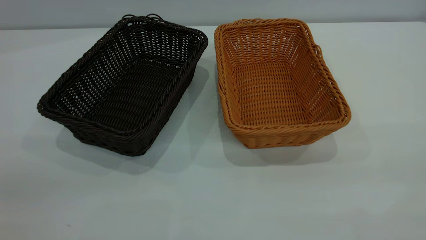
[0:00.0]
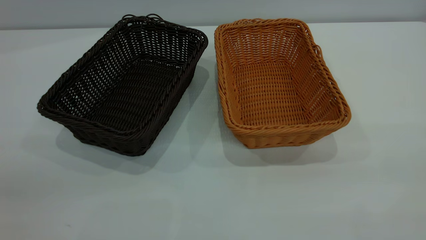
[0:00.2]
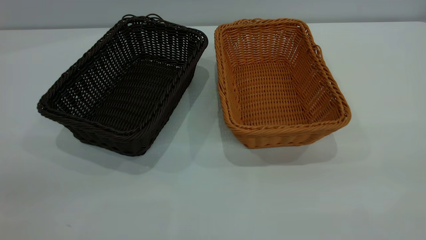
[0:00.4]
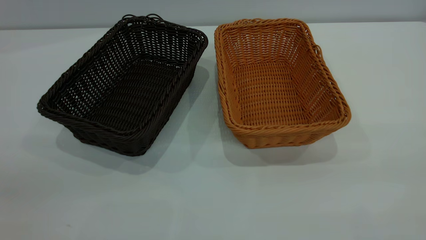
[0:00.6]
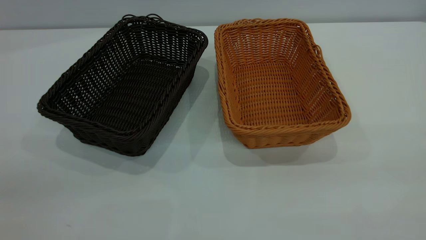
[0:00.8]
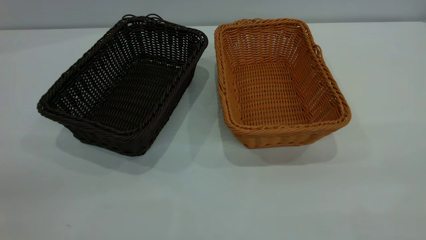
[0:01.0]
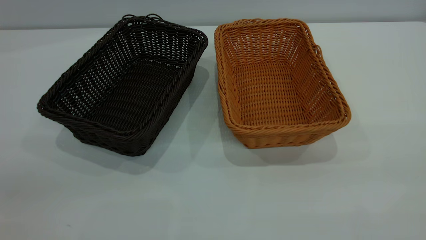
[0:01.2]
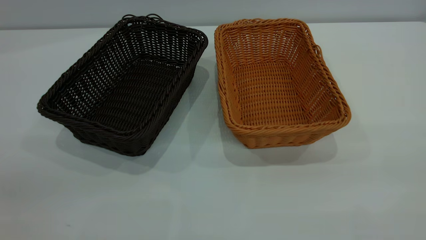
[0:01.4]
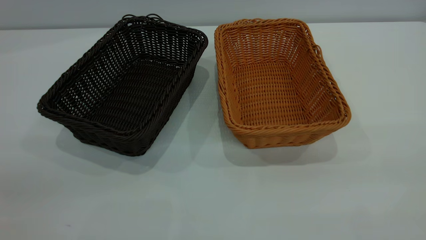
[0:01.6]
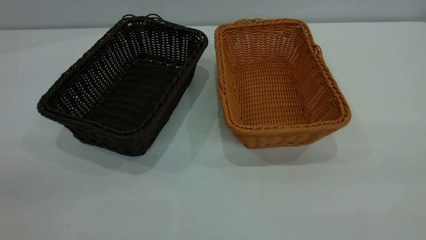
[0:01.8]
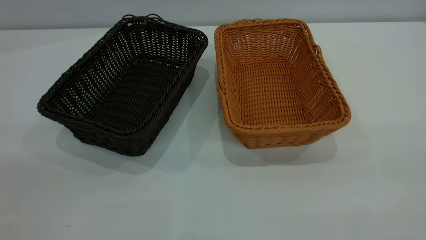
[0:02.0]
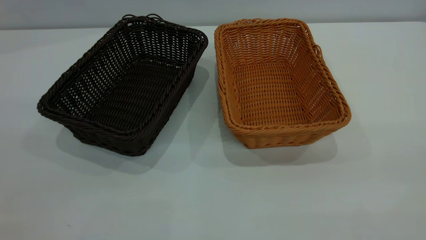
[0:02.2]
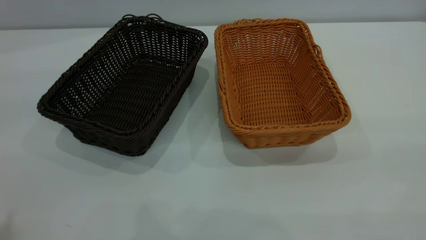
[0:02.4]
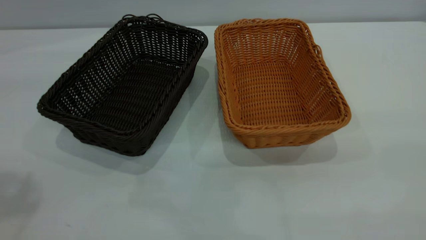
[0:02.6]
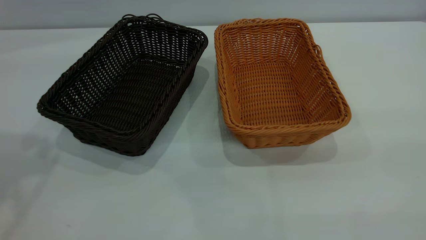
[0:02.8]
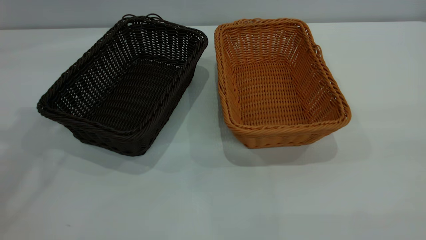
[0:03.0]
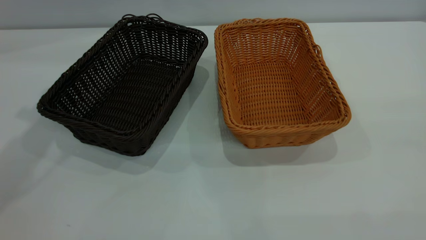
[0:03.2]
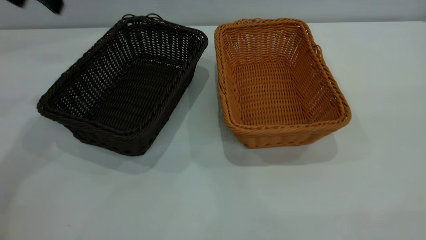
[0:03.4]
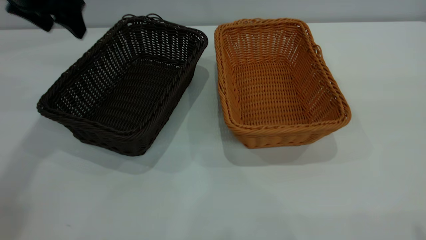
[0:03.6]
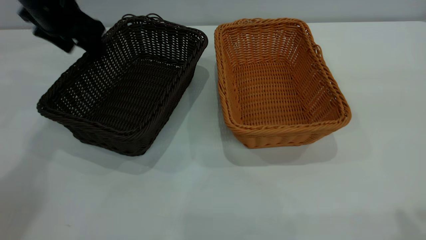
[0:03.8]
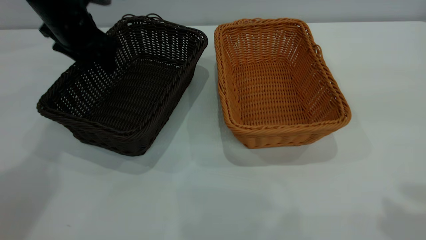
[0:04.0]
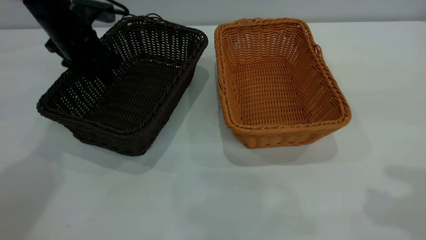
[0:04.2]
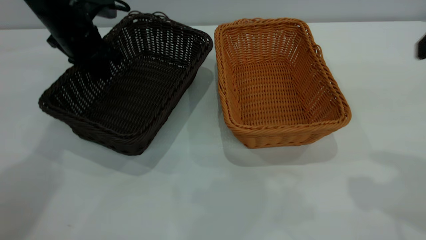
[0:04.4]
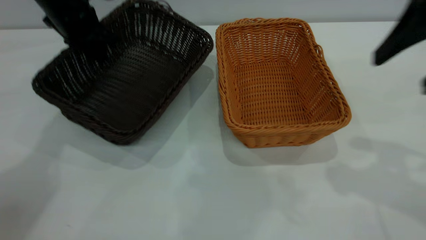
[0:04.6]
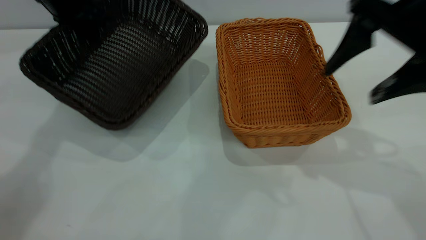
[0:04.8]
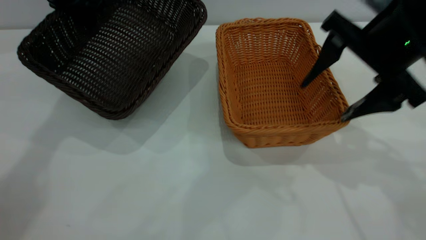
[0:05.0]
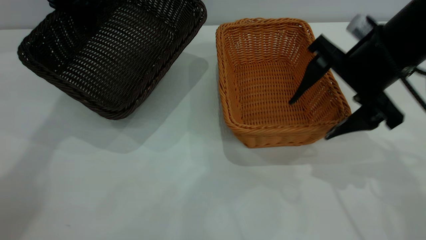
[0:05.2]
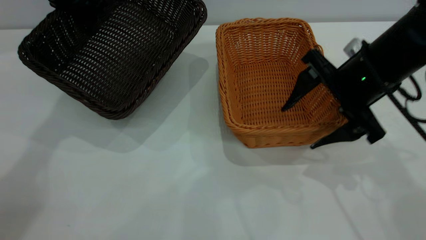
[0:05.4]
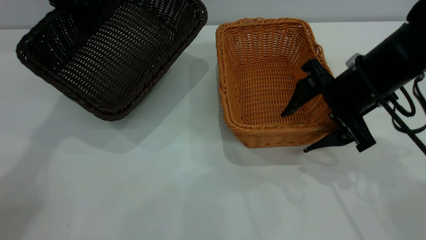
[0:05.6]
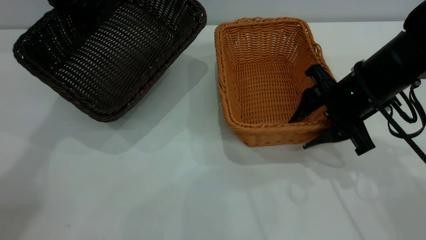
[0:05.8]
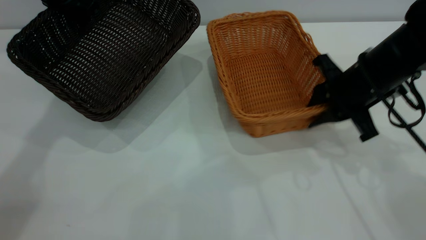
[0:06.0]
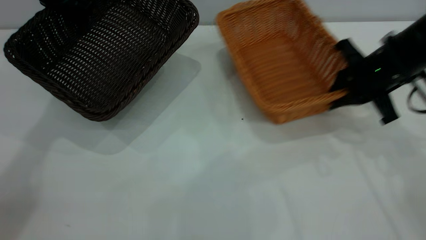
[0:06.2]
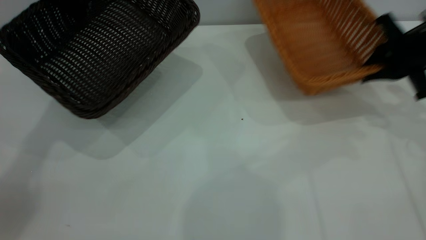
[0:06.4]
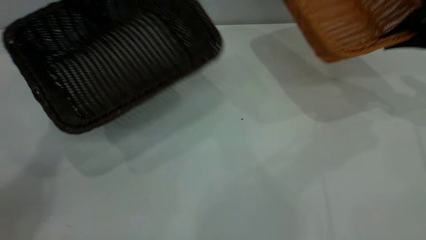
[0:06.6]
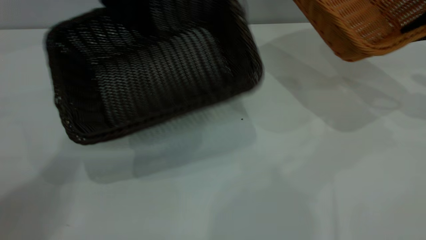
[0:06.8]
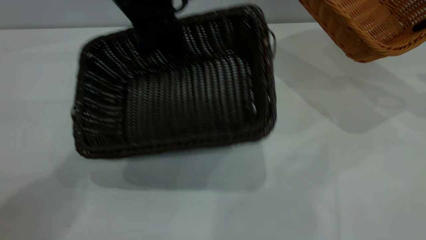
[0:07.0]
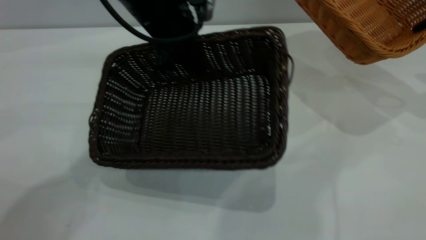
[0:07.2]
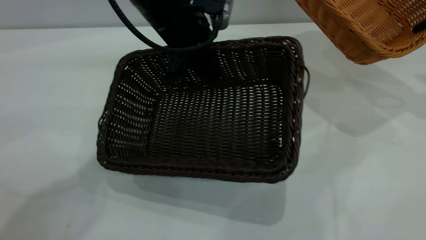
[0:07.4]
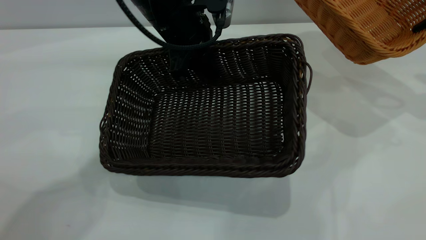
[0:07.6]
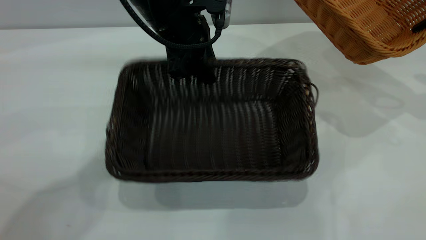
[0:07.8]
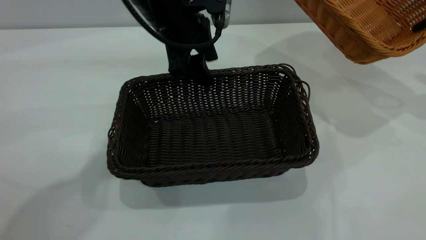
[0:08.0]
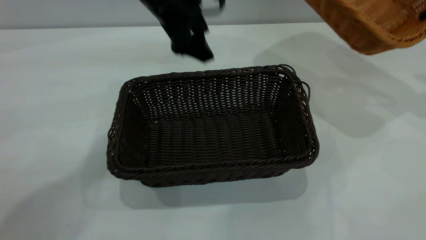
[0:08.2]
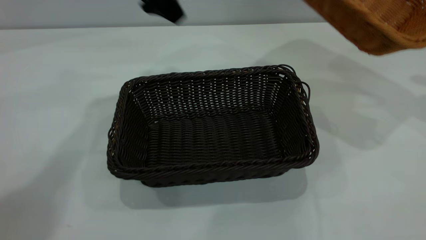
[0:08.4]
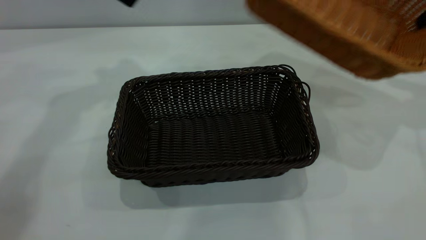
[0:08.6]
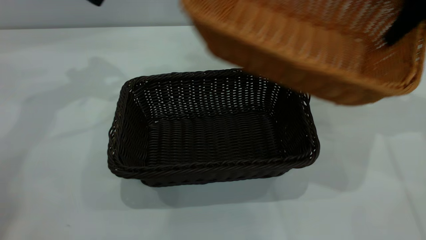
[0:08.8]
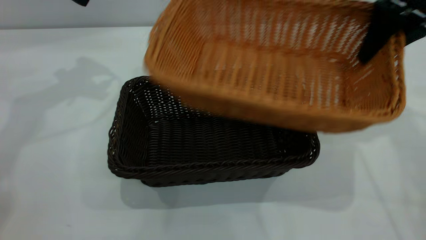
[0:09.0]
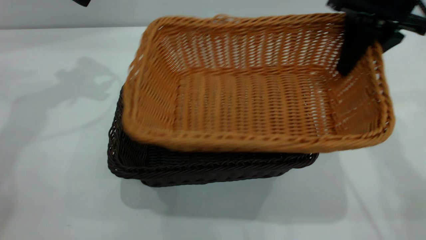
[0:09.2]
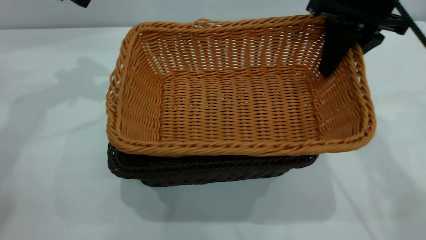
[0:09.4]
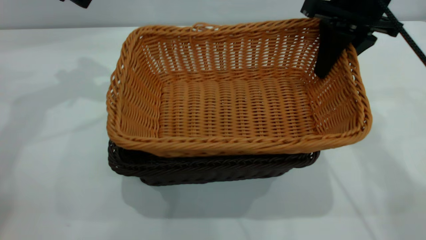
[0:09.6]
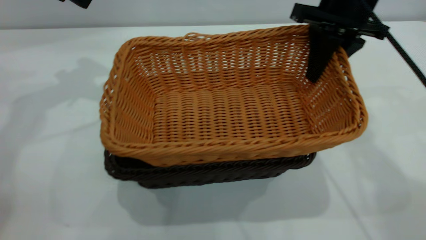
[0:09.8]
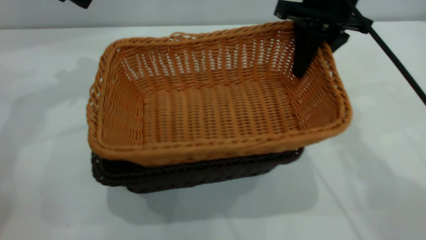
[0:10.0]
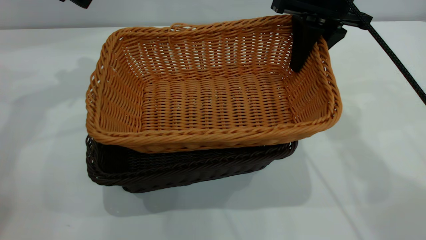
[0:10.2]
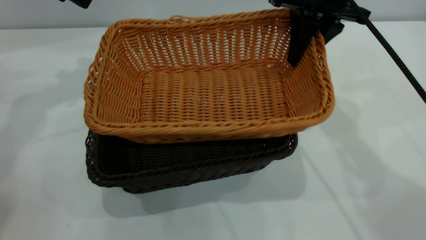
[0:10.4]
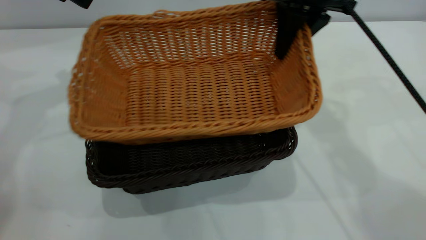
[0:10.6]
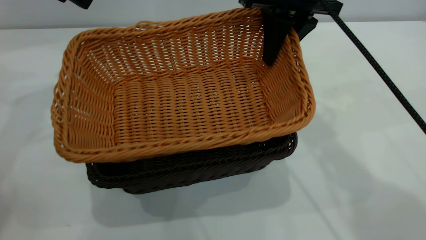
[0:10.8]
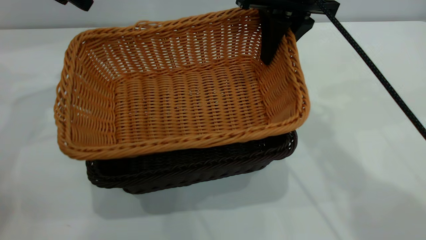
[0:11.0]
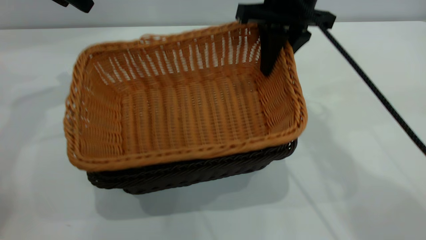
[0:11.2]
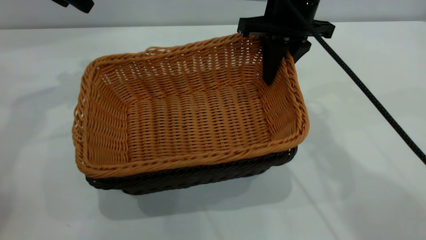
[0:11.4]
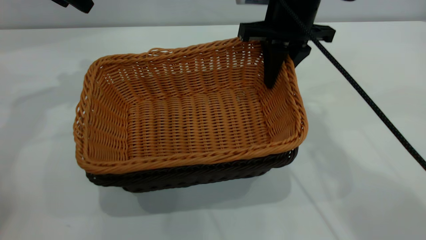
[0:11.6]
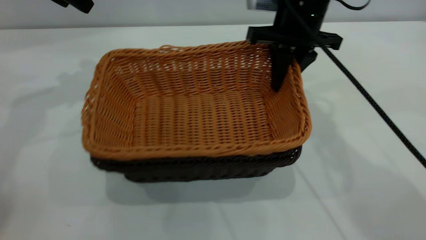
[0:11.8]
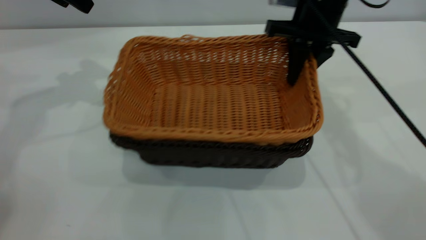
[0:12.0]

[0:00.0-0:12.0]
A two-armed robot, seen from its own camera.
Task of the whole recording: the left gripper grasp the black basket and place it in the center of the table, the right gripper grasp the brown basket and place it inside the black one.
Step, 0:03.4 to 0:04.2: Grasp the dark basket with left gripper.
Step, 0:04.6 to 0:06.0: Grasp the light basket with right gripper.
Step, 0:06.2 to 0:08.0: Place the dark basket in the center of the table with left gripper.
0:00.0 to 0:01.6: Both grippers stay put.
0:03.0 to 0:04.4: The right gripper goes some 20 cm forward and downward. Meanwhile the left gripper heads downward and forward, covering approximately 25 cm, and closes its fingers.
0:04.4 to 0:06.0: The left gripper shifts roughly 10 cm upward. The right gripper shifts some 20 cm downward and forward, and closes up.
0:06.0 to 0:07.6: The left gripper travels to the right by about 20 cm. The right gripper travels to the right and upward by about 20 cm.
0:07.6 to 0:09.0: Both grippers move to the left, approximately 20 cm. The left gripper opens up.
0:09.0 to 0:10.4: The right gripper is displaced to the left by roughly 10 cm.
0:10.4 to 0:12.0: The right gripper shifts approximately 5 cm downward.

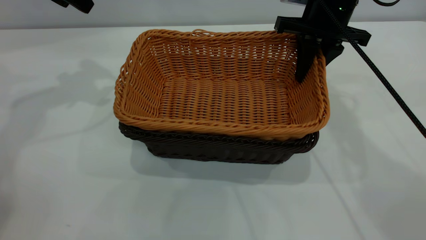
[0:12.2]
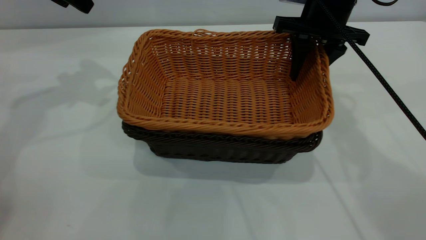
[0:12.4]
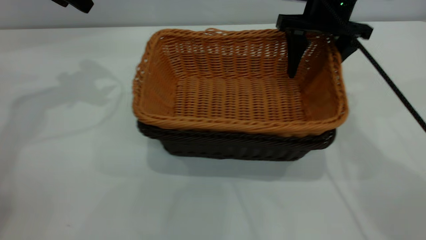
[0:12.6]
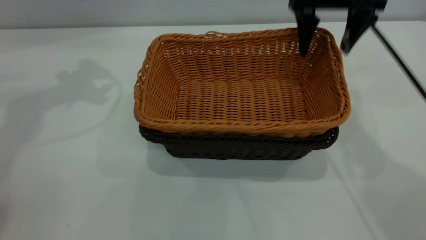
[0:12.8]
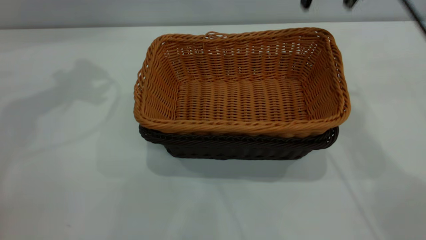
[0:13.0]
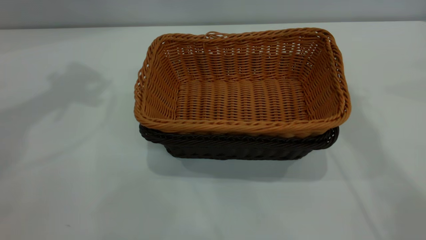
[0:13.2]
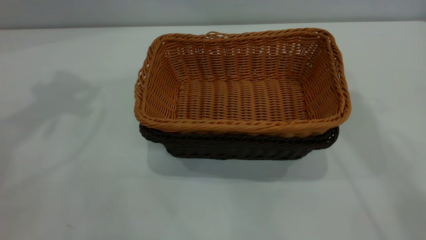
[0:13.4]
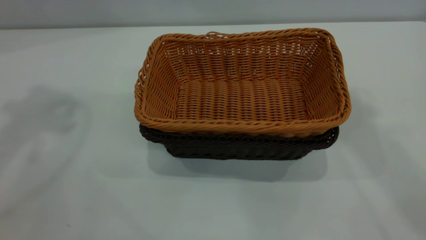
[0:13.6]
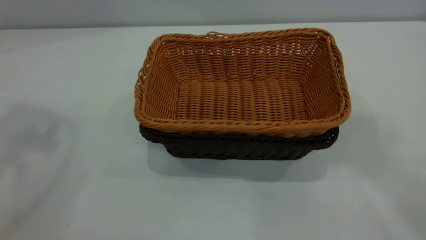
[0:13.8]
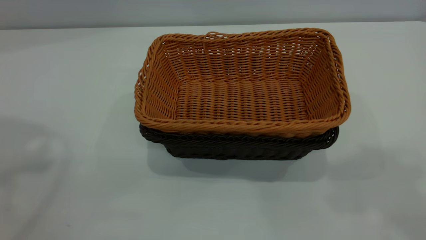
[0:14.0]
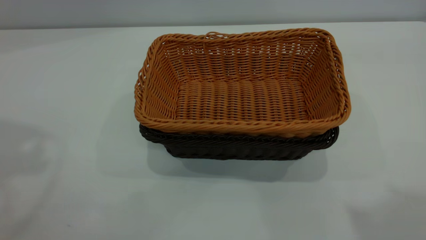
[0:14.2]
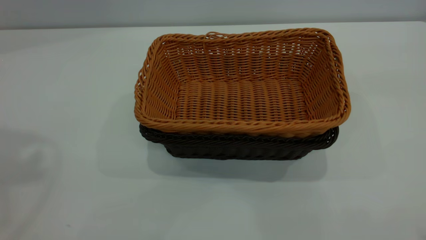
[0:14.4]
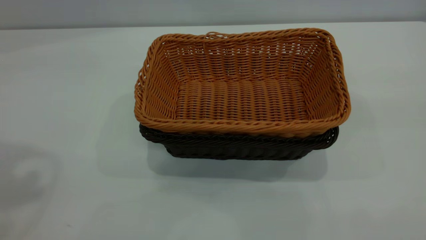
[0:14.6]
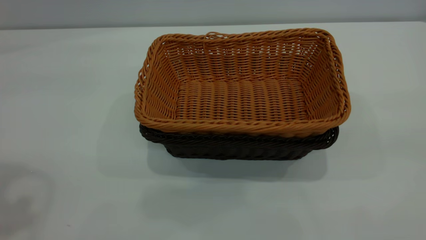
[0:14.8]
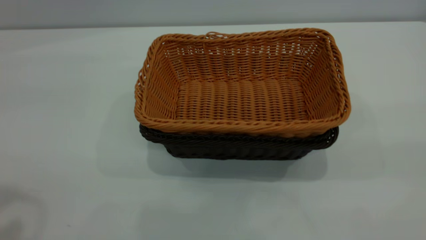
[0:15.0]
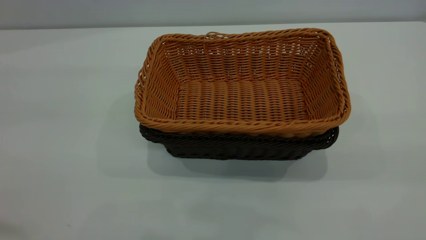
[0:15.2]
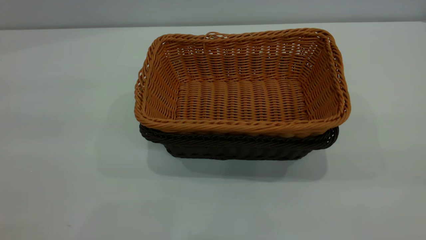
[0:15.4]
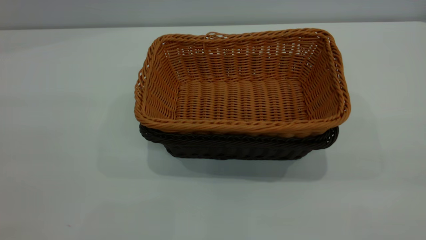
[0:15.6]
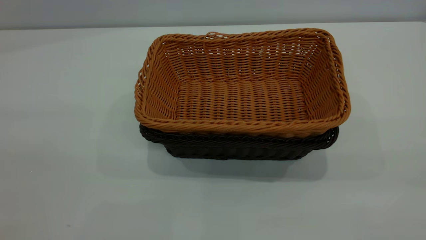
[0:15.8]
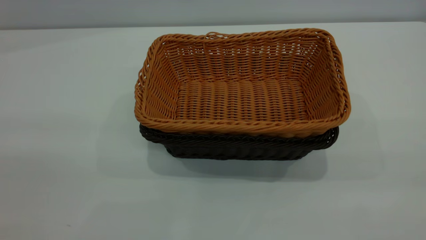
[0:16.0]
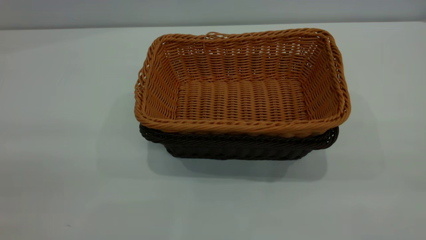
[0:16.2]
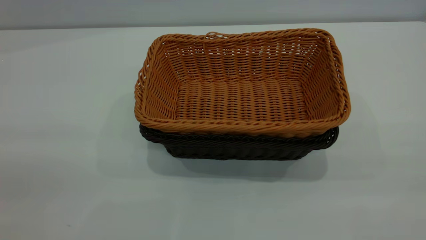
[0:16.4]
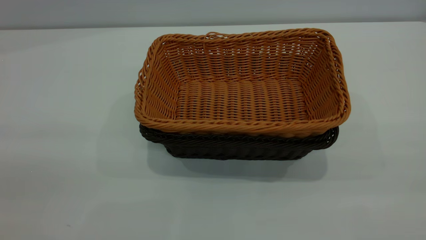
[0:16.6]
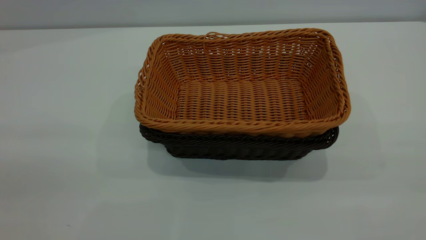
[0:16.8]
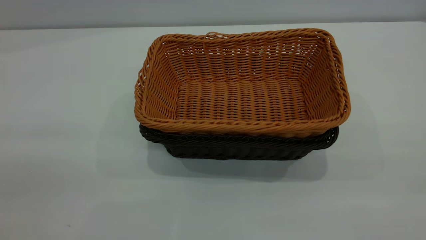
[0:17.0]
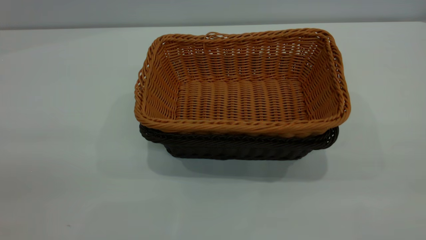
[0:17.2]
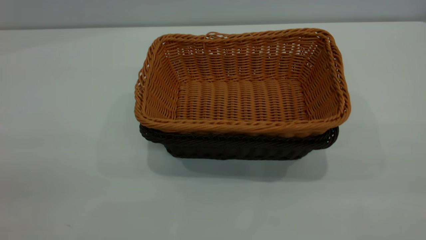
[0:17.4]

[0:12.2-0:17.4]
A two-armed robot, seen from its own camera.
Task of the whole recording: the left gripper grasp the black basket and place it in the center of the table, the right gripper grasp the brown basket and place it inside the black one.
0:12.2 to 0:14.0: Both grippers move upward and backward, approximately 40 cm. The right gripper opens.
